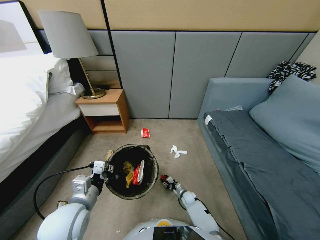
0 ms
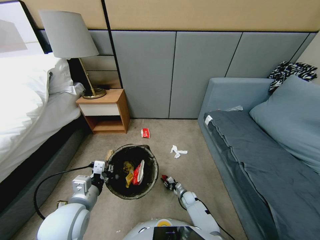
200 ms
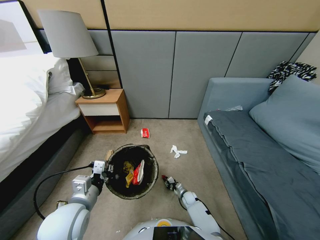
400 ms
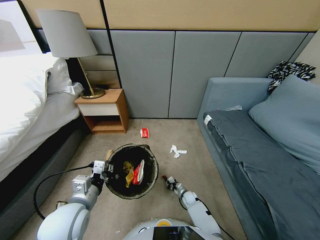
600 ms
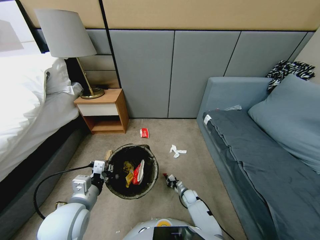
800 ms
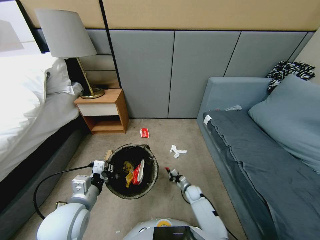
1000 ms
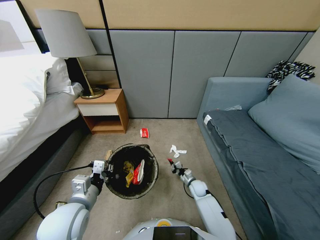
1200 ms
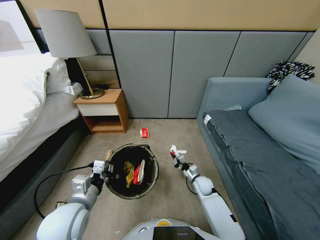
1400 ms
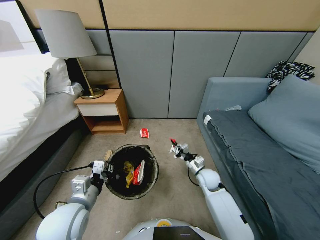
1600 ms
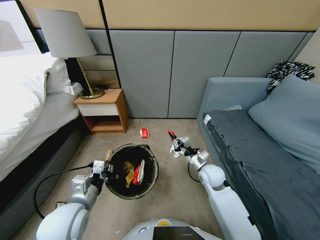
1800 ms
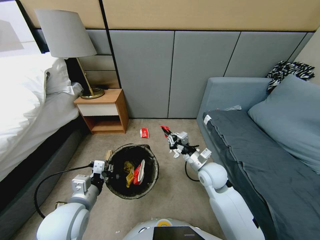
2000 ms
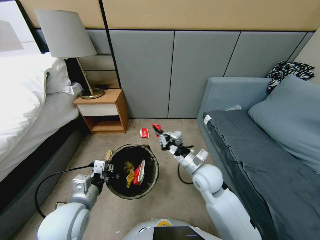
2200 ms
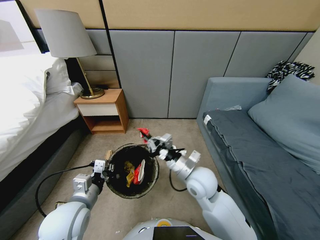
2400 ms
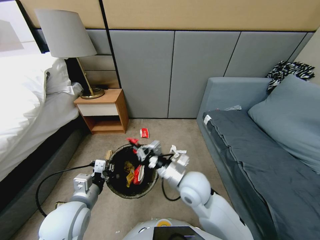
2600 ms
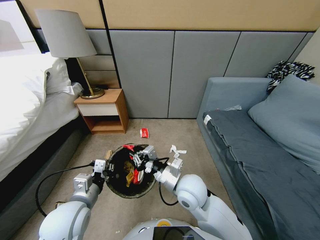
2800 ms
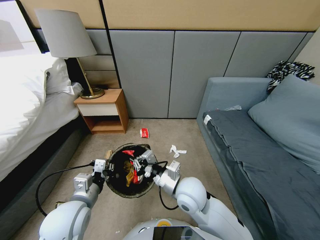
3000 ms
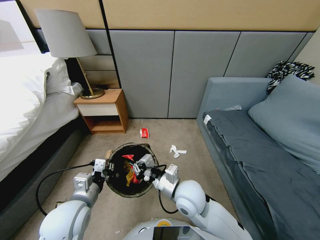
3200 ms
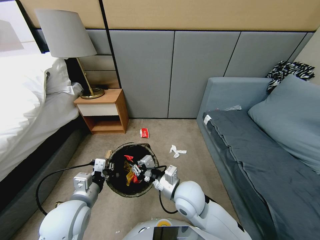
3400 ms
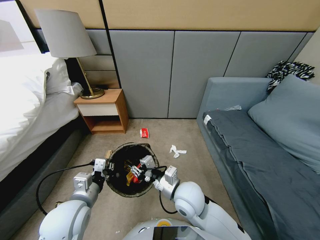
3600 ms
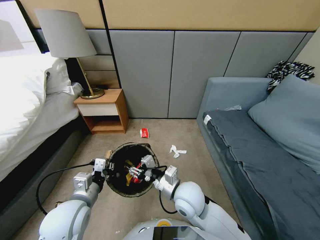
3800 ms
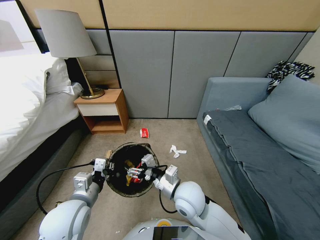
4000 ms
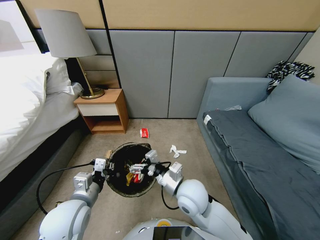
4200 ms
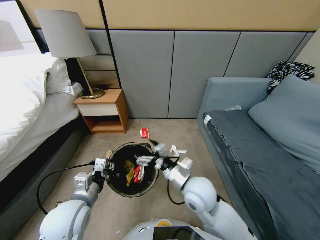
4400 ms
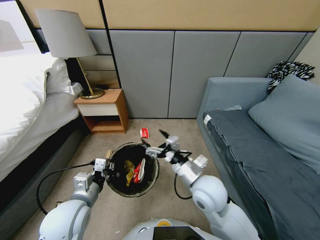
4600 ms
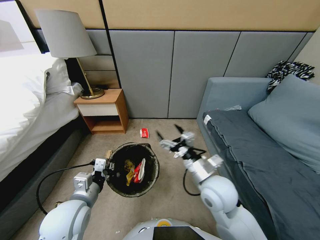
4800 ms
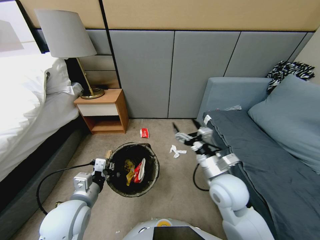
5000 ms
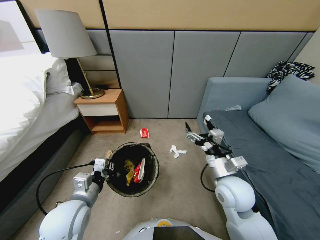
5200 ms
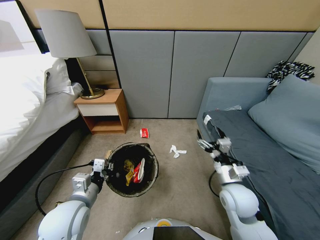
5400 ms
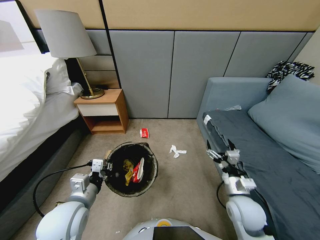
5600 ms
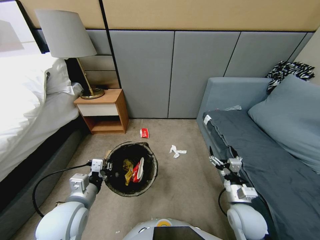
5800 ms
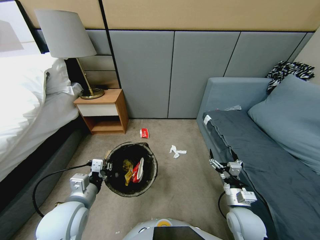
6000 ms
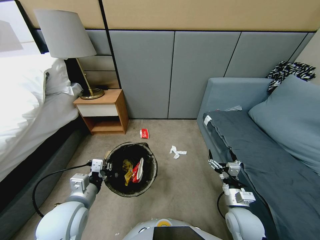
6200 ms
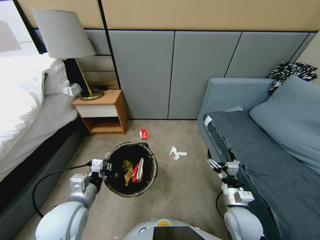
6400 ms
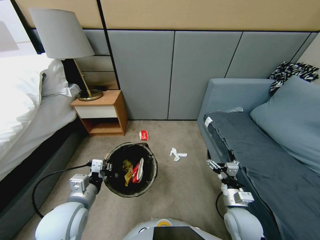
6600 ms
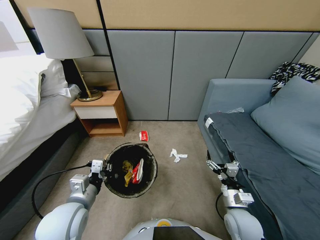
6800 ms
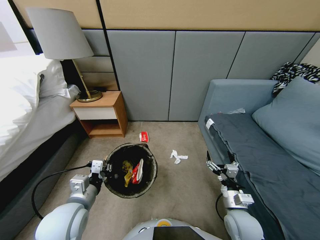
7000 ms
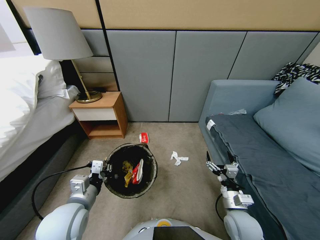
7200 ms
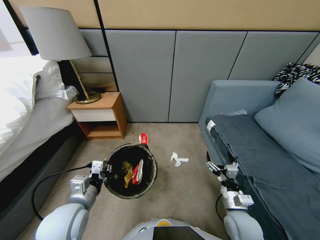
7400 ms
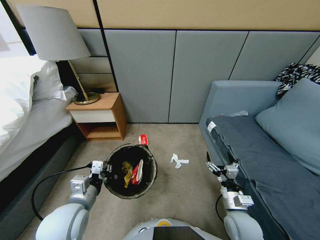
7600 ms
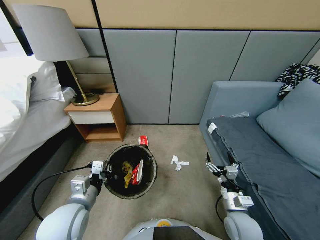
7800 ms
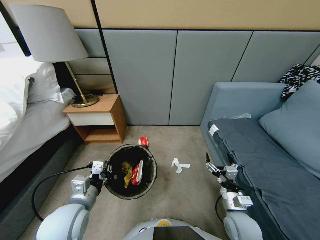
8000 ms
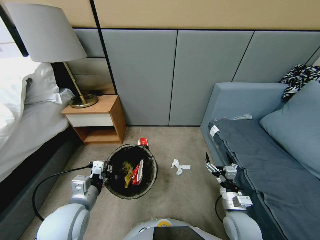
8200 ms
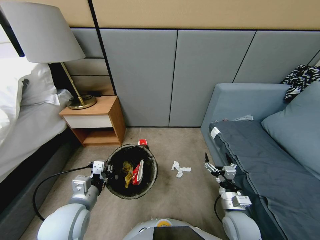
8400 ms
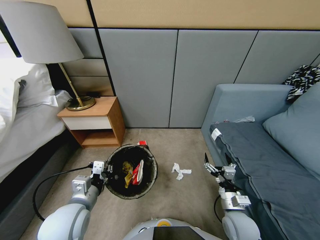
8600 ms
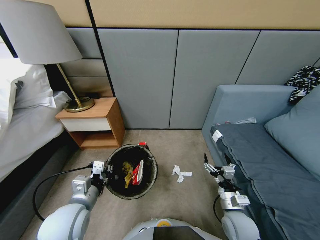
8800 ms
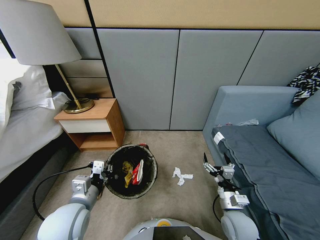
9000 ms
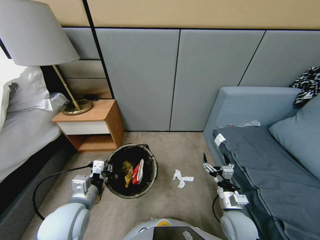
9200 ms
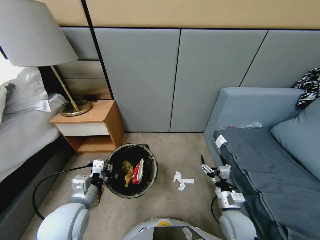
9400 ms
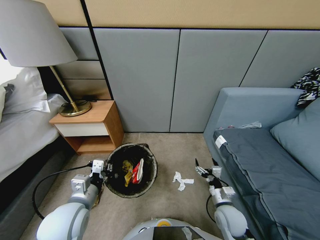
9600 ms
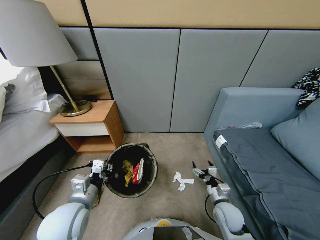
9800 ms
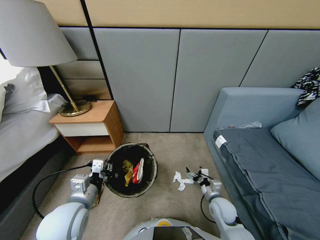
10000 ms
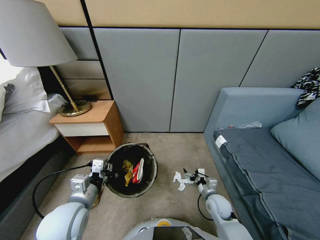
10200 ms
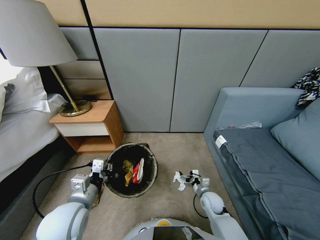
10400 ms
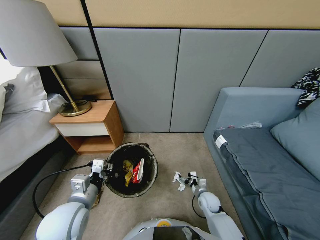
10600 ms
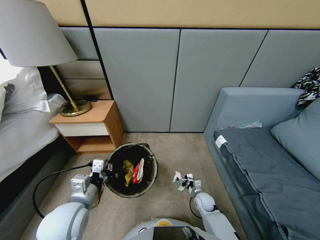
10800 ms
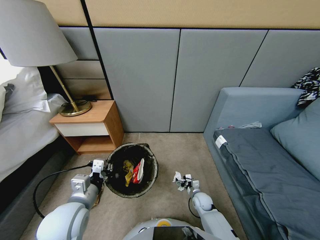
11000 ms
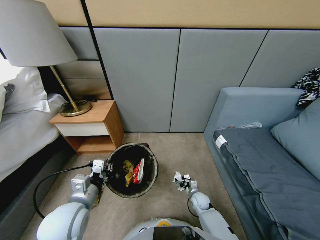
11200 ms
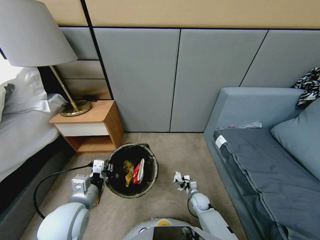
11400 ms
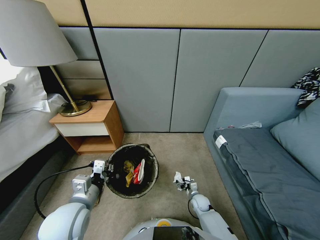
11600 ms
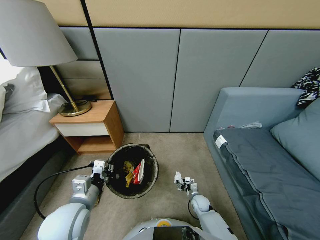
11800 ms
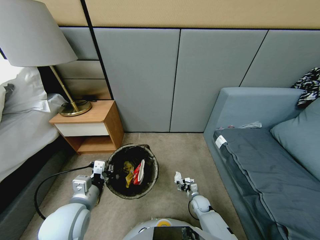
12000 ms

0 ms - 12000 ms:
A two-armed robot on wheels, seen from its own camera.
Task of the whole recording: Pick up the trash bin, then pick up the garbage from the floor and place it into the trash bin.
0 ms - 1600 ms: The right gripper is displaced upward by about 25 cm.
1600 ms - 3000 ms: The right gripper is displaced upward, to the left and backward by approximately 25 cm.
3000 ms - 4400 ms: The right gripper changes place by roughly 5 cm, and opens.
4400 ms - 6000 ms: The right gripper travels to the right, downward and backward by approximately 20 cm.
9000 ms - 10400 ms: The right gripper travels downward and forward by some 15 cm.
10400 ms - 12000 ms: The right gripper shifts approximately 10 cm downward.

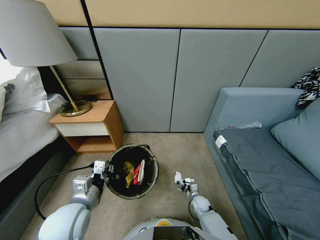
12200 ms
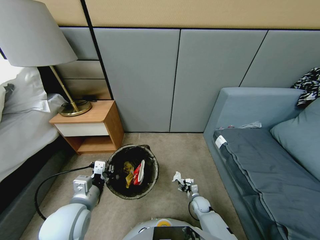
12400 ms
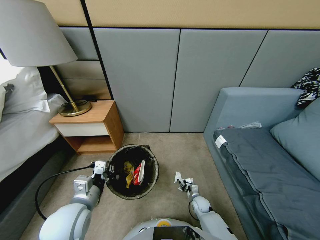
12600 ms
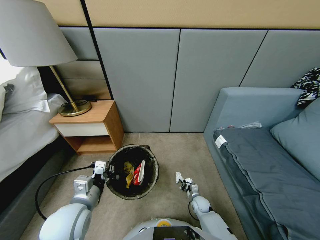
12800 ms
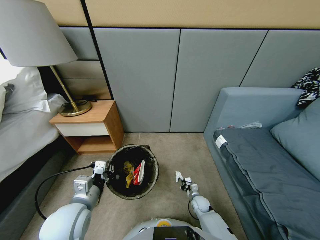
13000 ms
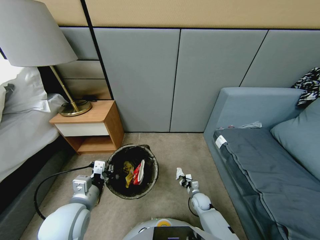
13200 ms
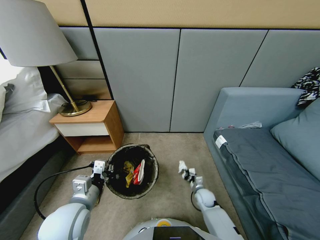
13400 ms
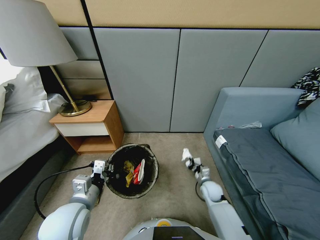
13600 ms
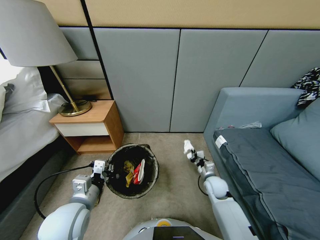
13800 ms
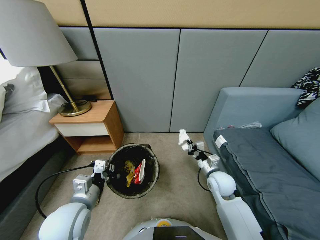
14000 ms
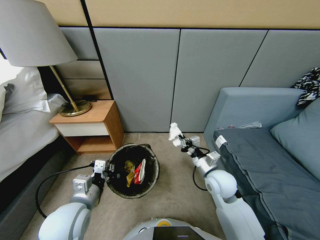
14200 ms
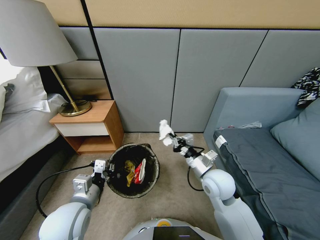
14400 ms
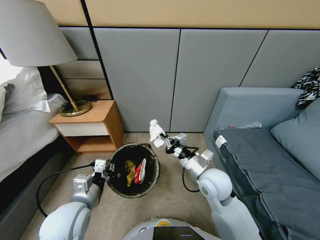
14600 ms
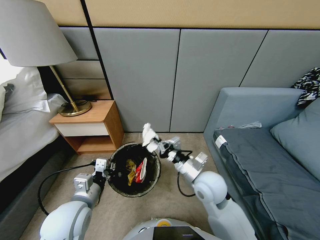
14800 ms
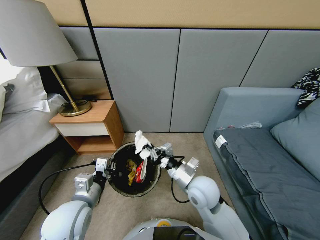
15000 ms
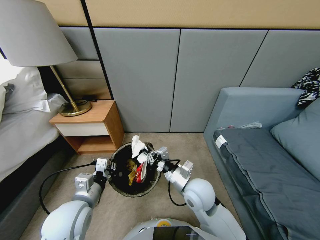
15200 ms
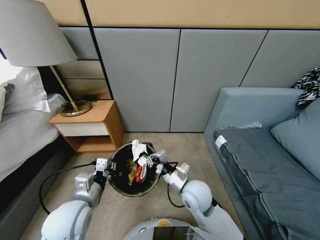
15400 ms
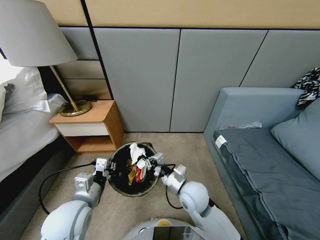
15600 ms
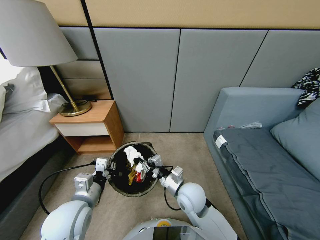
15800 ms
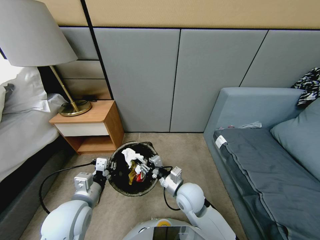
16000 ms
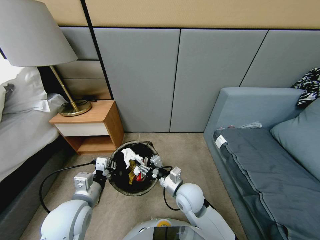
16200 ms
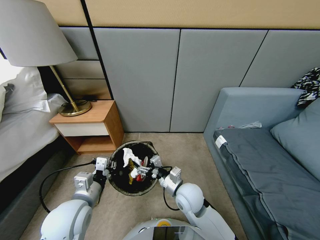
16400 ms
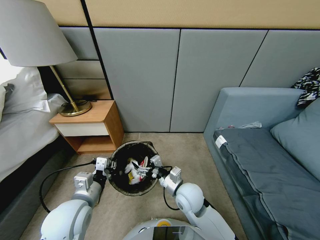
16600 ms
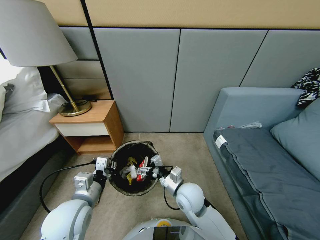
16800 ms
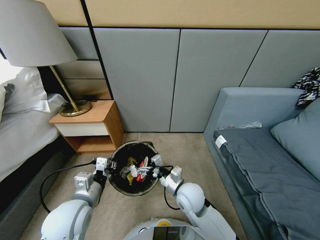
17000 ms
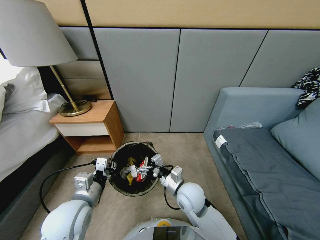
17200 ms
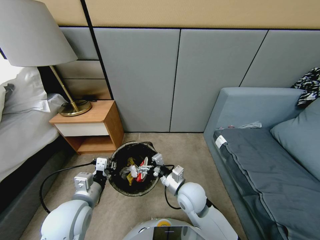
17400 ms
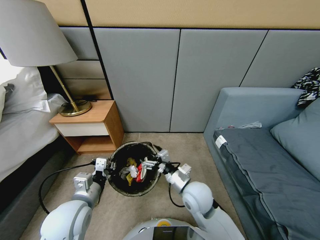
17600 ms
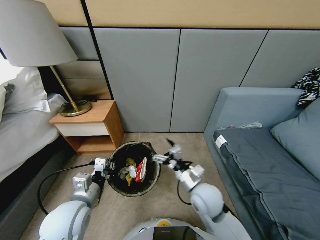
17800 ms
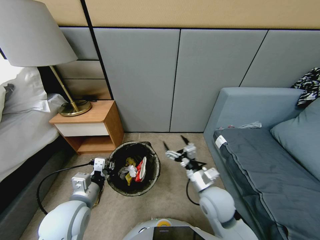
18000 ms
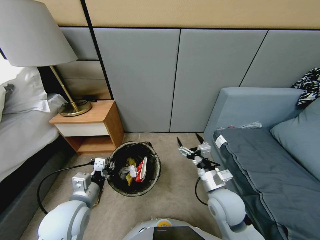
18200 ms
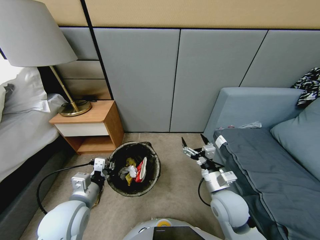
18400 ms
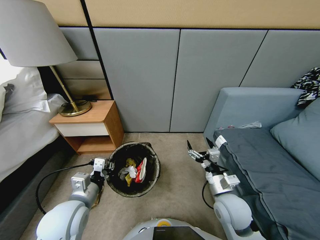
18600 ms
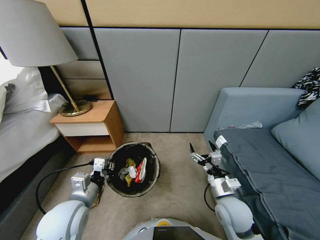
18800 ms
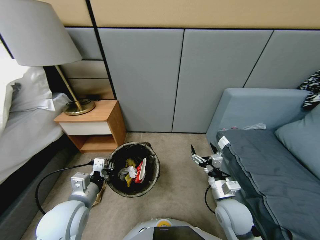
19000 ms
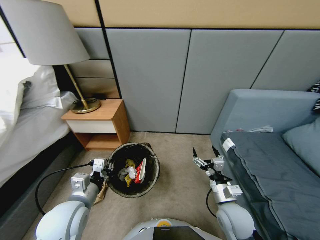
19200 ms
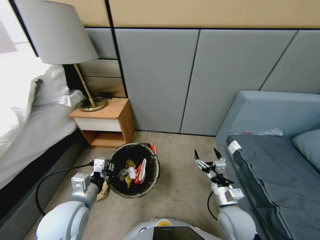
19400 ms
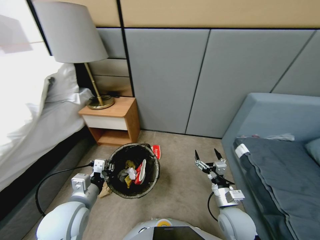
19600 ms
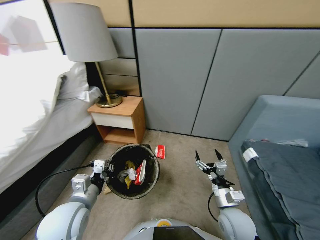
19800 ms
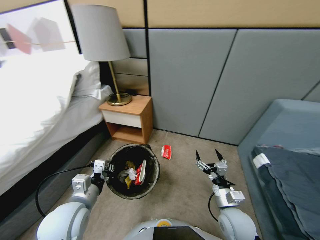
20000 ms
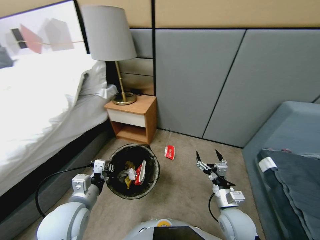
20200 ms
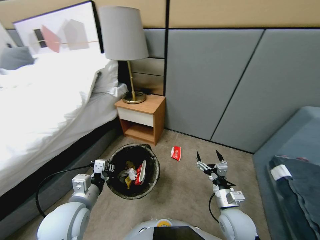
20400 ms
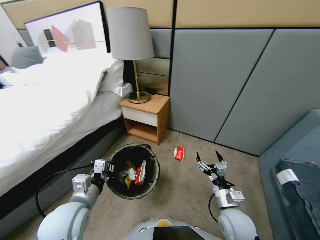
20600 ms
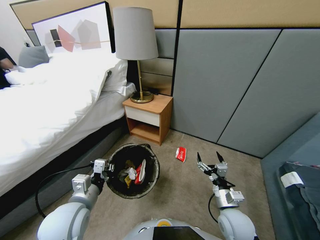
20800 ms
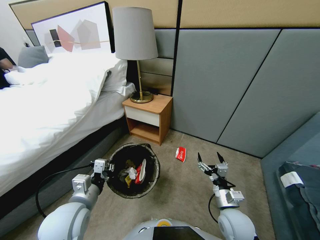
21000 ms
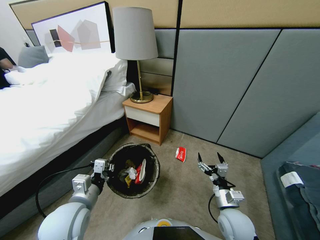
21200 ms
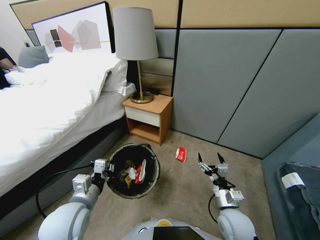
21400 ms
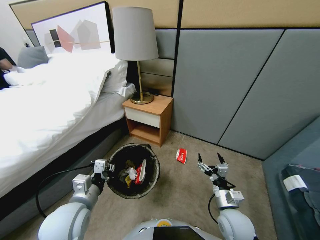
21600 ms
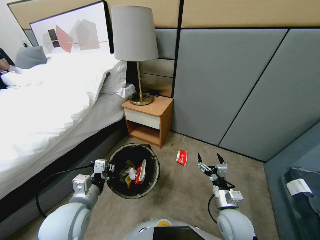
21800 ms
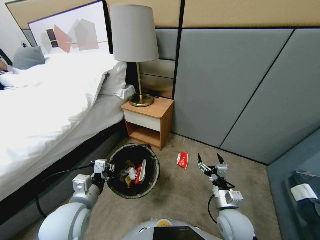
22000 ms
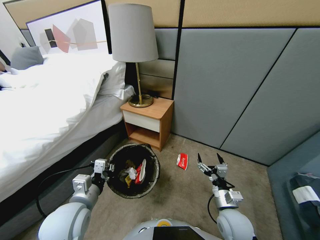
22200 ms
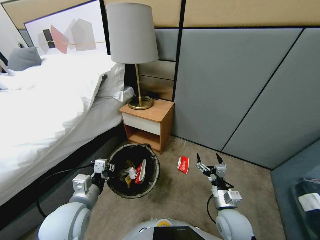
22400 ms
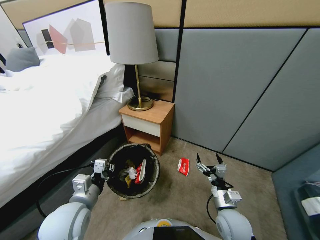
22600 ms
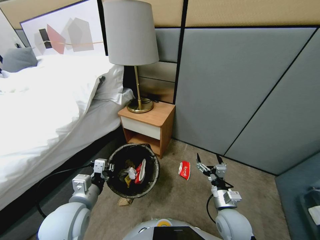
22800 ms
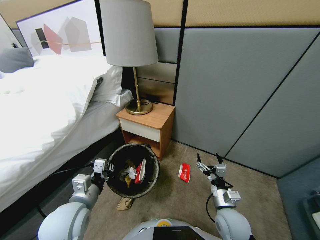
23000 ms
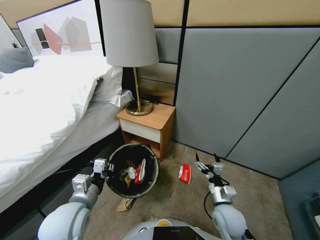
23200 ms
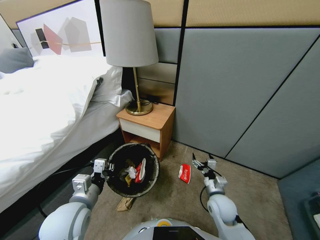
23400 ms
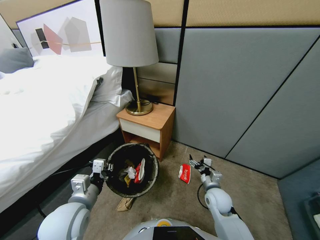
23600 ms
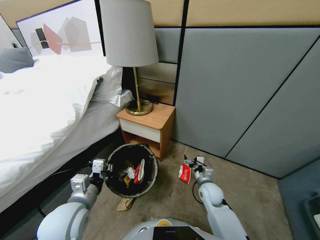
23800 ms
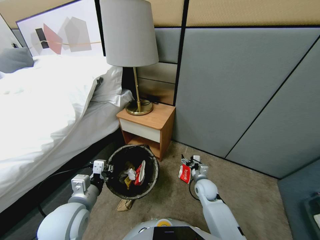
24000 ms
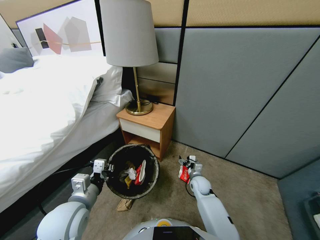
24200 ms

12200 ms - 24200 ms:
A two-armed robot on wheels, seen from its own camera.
Task of the whole recording: Pick up the trash bin, then pick up the garbage from the floor and place it into the trash bin.
12200 ms - 13800 ms: The right gripper moves upward, roughly 25 cm, and closes its fingers.
13800 ms - 15200 ms: The right gripper is displaced to the left, upward and backward by some 15 cm.
15200 ms - 16600 ms: The right gripper opens up.
16600 ms - 18200 ms: The right gripper heads to the right, covering roughly 10 cm.
18200 ms - 19800 ms: The right gripper is displaced downward by about 5 cm.
22600 ms - 24200 ms: The right gripper is displaced forward and downward by roughly 25 cm.
